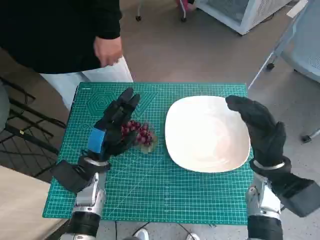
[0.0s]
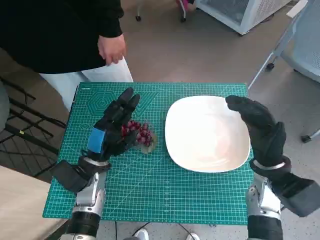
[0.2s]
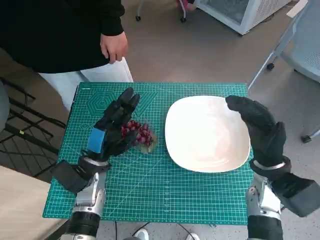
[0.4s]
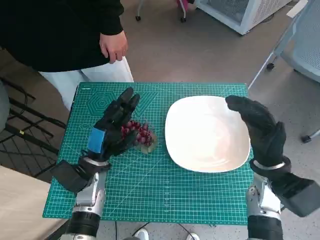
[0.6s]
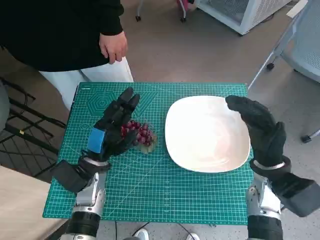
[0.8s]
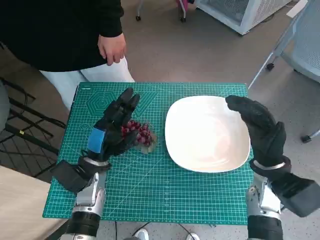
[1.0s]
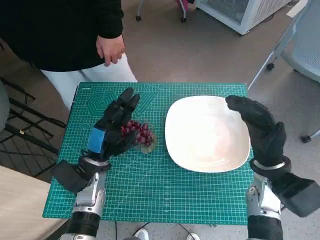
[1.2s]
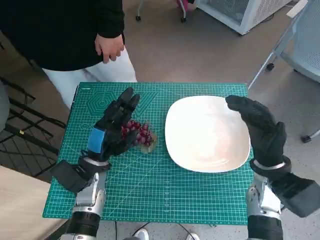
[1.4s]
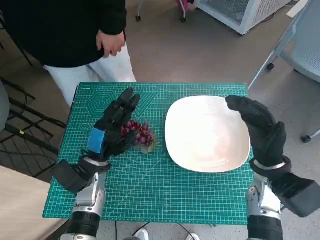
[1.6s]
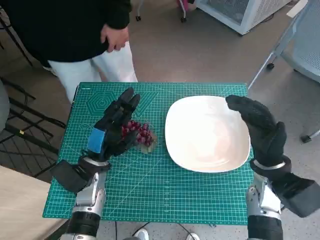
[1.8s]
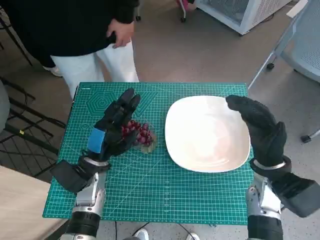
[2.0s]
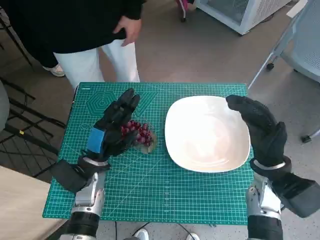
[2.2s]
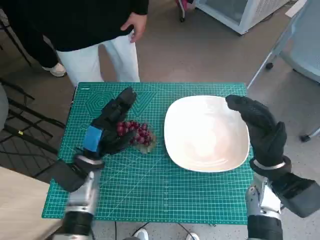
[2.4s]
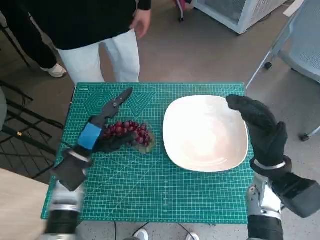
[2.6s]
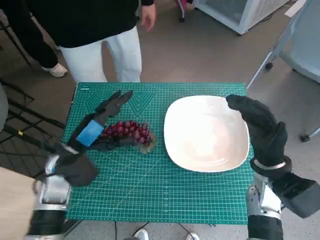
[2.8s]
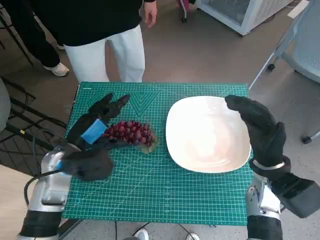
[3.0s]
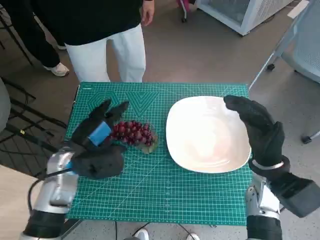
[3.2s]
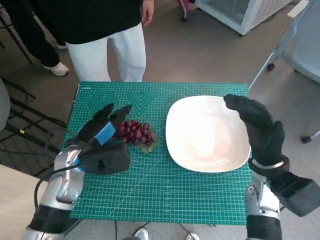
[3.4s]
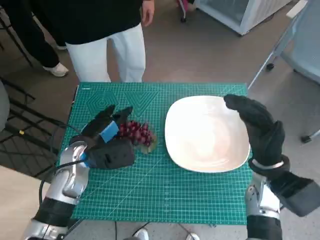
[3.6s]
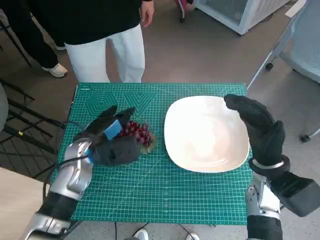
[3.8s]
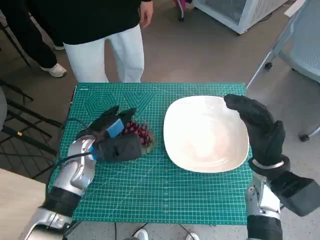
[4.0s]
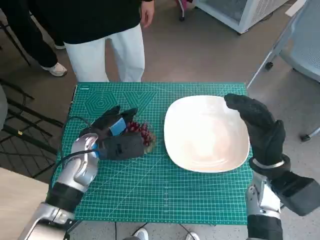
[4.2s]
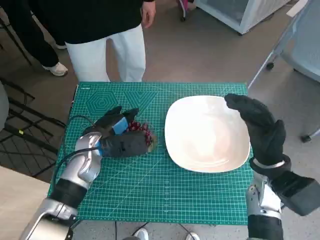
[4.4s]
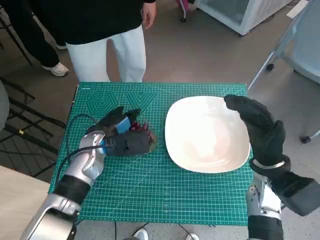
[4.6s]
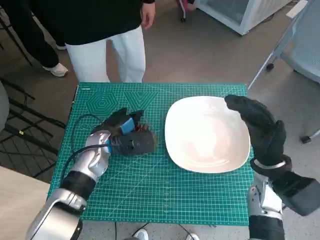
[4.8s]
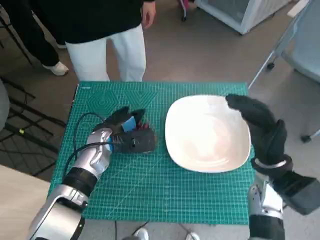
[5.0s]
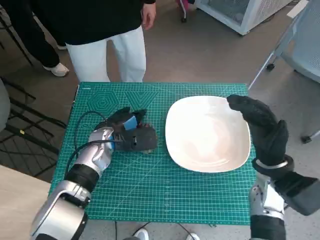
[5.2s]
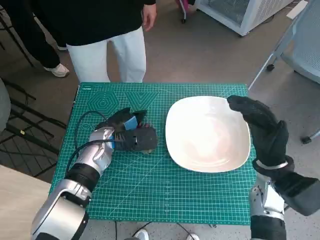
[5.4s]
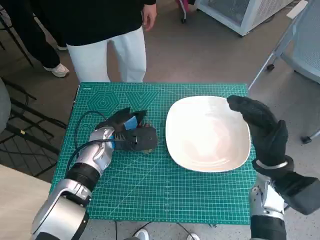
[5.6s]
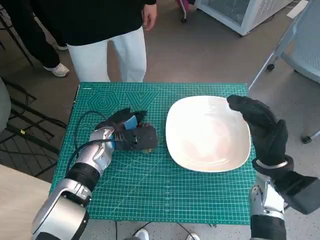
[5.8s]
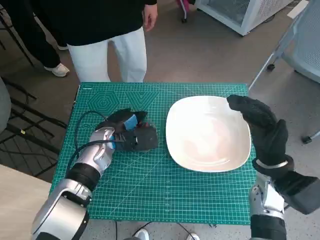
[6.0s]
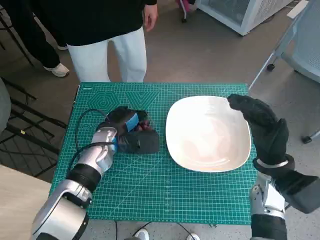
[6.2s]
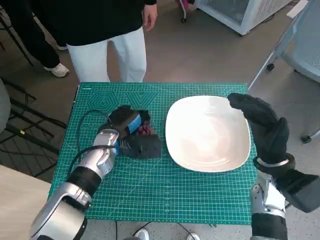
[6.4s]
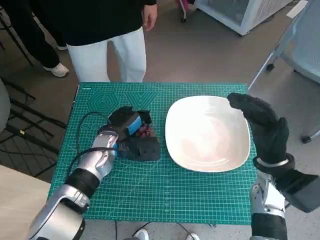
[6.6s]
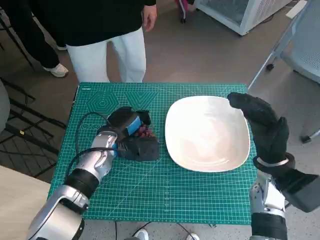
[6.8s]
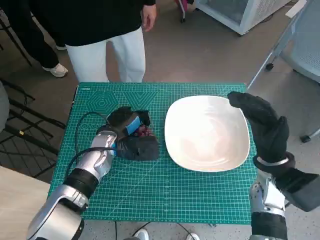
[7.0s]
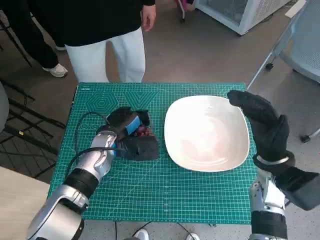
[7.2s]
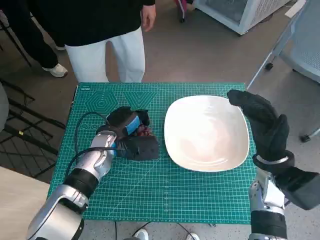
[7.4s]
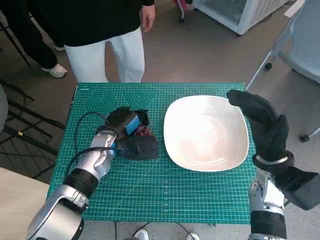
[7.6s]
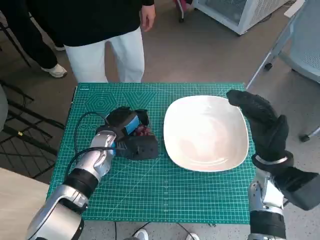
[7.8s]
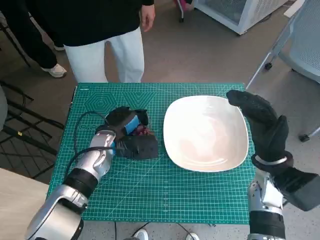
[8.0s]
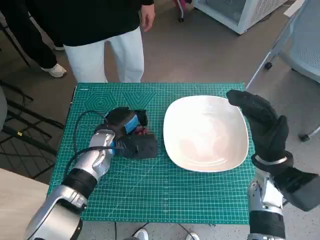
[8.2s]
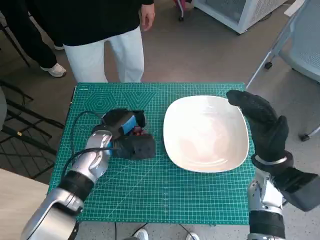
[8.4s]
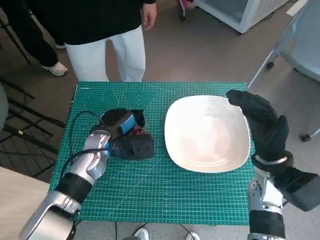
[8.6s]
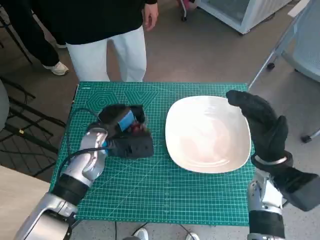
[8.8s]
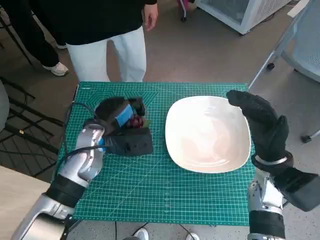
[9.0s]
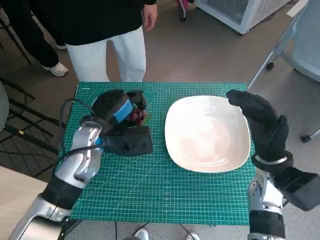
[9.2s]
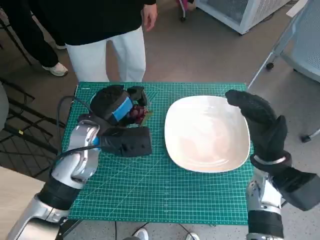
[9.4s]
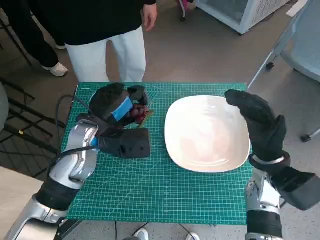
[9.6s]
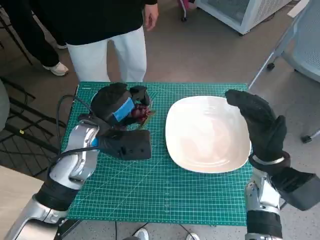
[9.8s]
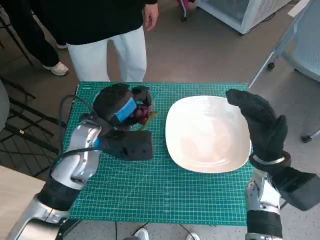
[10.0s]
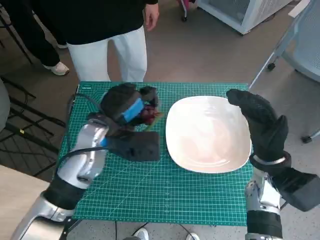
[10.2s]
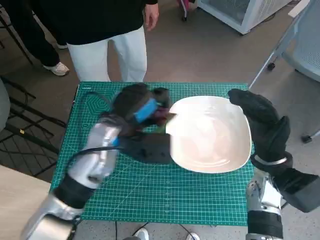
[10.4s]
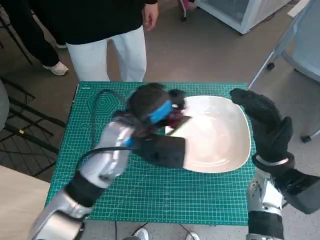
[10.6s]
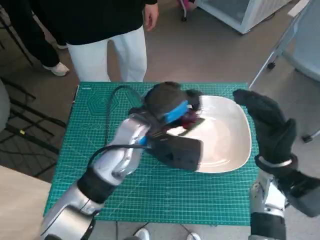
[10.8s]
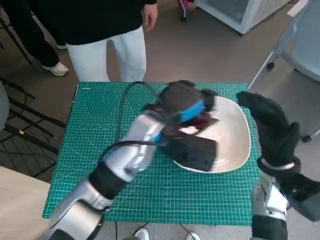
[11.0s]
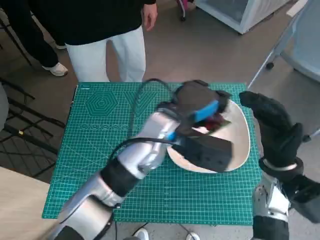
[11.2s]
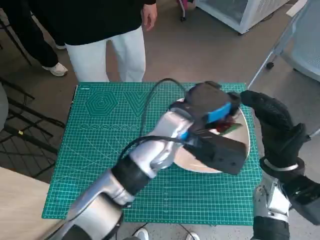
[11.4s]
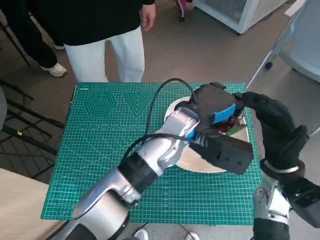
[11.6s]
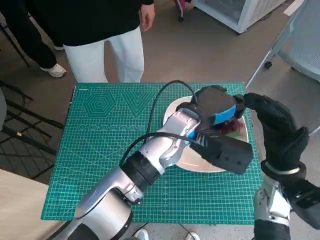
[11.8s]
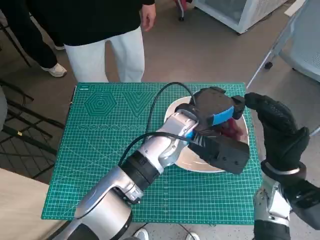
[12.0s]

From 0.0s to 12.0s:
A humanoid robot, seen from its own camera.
Task of the whole recording: Pick up the grapes and put them on the plate.
Step, from 0.0s to 6.8s: Grasp the grapes with left hand.
From 1.6s to 3.0s: The left hand moves upward, roughly 5 cm.
From 3.0s to 4.4s: The left hand travels forward by approximately 5 cm.
From 4.4s to 9.0s: The hands stay close to where they were, moving slightly.
From 9.0s to 10.4s: The left hand shifts by roughly 5 cm.
From 10.4s to 12.0s: The left hand travels to the right by some 15 cm.

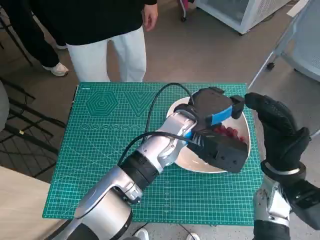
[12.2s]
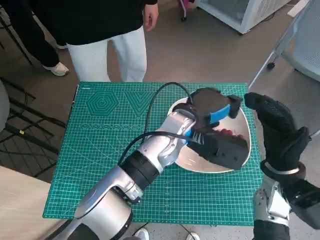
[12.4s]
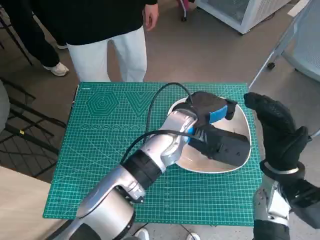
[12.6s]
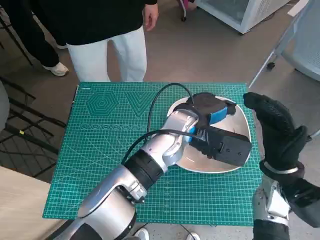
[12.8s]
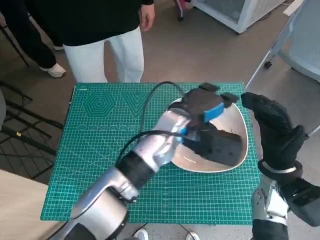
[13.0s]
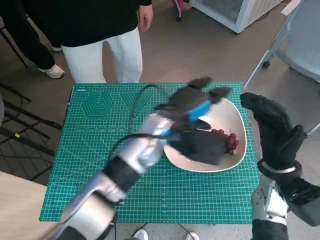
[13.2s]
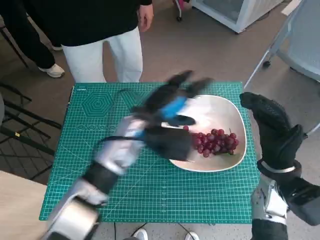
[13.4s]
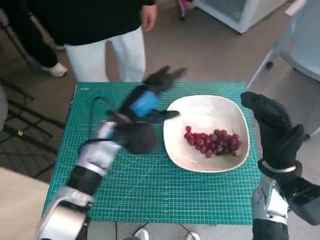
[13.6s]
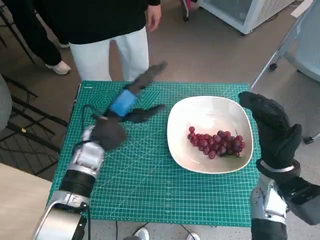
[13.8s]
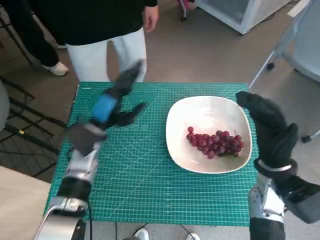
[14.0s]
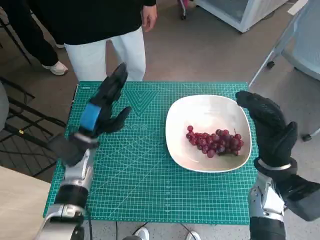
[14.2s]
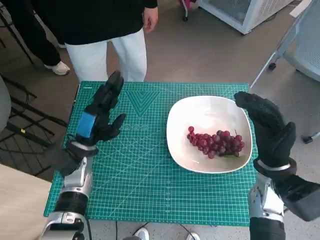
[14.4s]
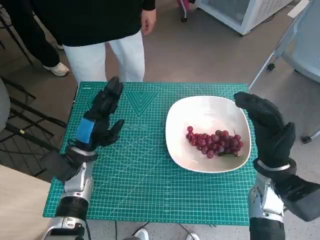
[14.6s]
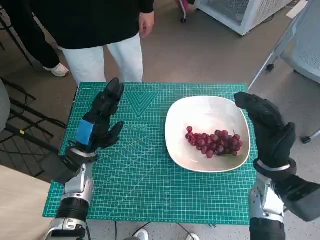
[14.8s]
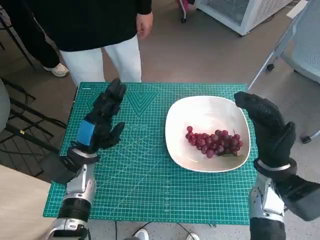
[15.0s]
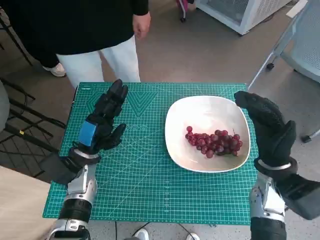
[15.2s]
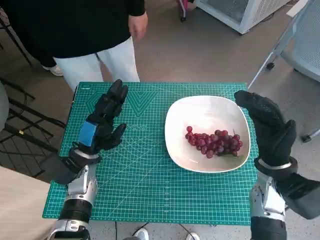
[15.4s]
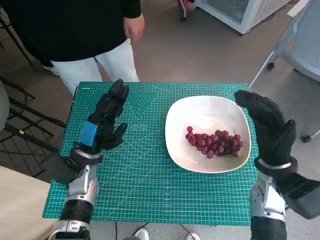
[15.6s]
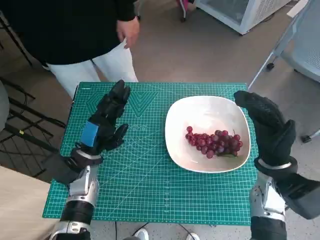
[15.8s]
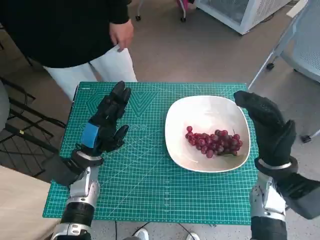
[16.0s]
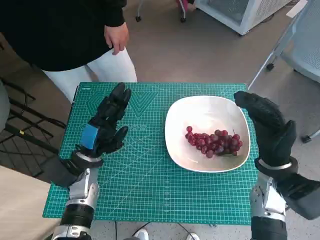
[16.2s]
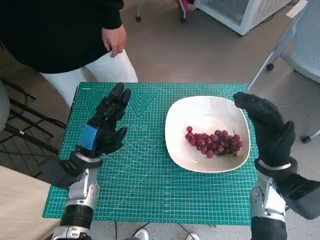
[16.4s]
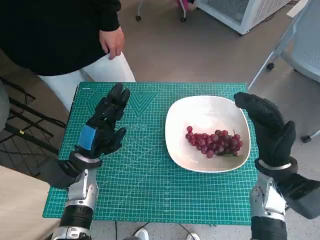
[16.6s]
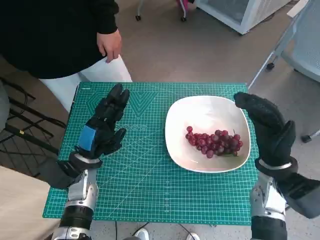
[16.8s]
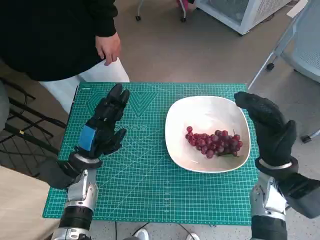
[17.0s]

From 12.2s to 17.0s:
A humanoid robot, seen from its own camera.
Task of the whole recording: Pick up the grapes and put them on the plate.
From 12.2s to 13.8s: The left hand travels to the left by roughly 15 cm.
From 13.8s to 15.4s: The left hand heads downward and to the left, covering some 10 cm.
From 15.4s to 17.0s: Both hands stay put.

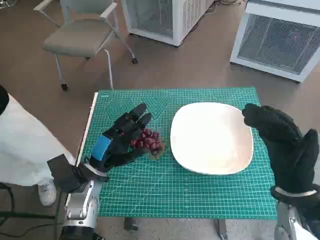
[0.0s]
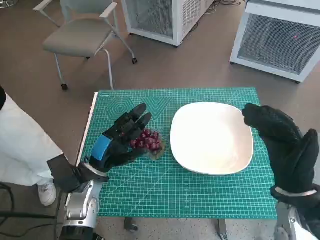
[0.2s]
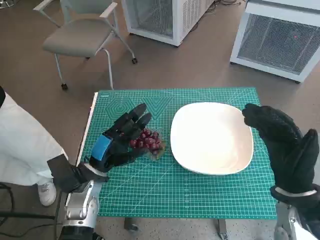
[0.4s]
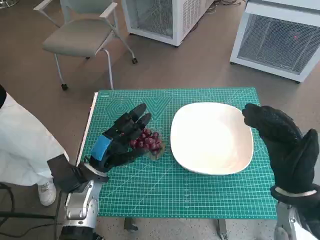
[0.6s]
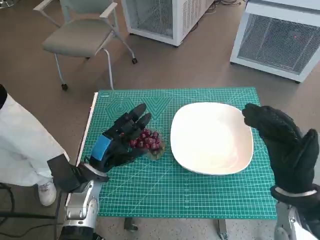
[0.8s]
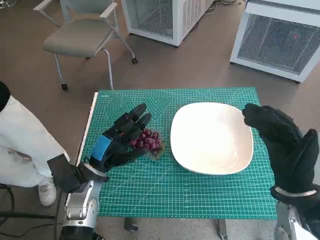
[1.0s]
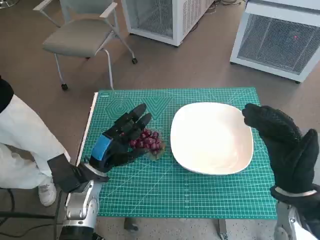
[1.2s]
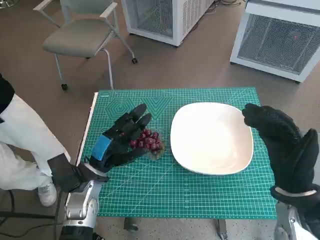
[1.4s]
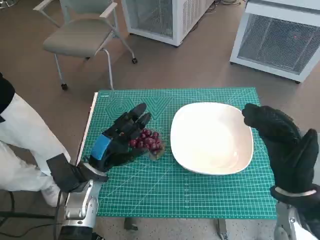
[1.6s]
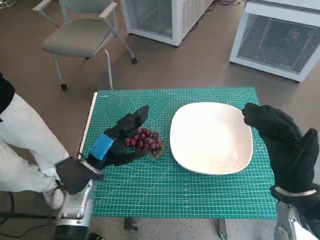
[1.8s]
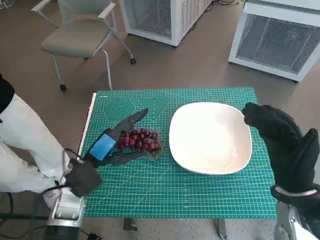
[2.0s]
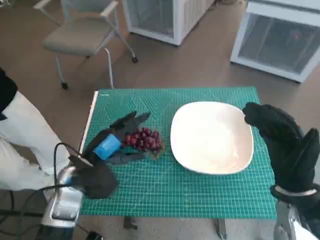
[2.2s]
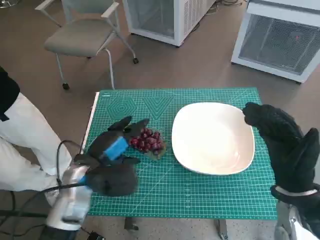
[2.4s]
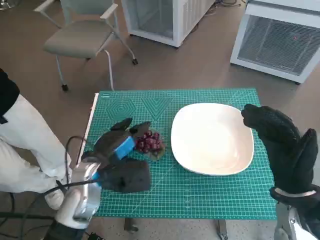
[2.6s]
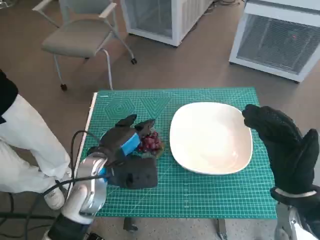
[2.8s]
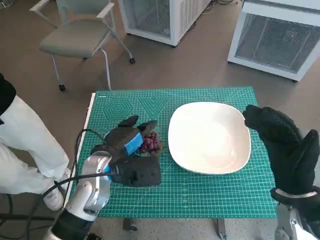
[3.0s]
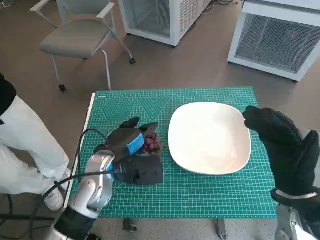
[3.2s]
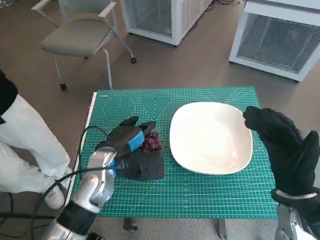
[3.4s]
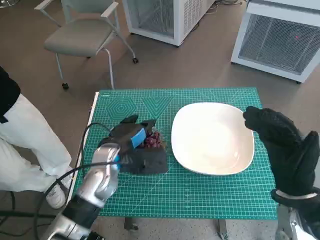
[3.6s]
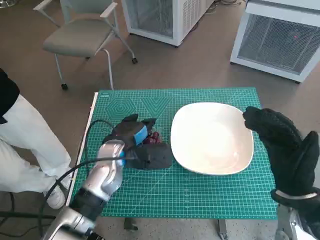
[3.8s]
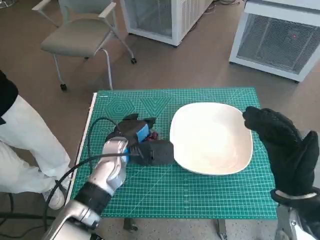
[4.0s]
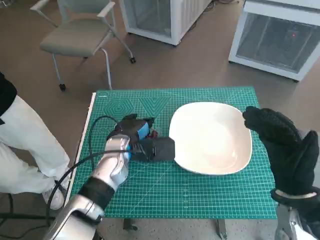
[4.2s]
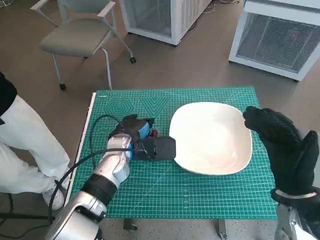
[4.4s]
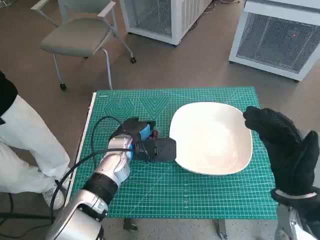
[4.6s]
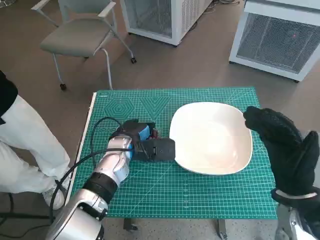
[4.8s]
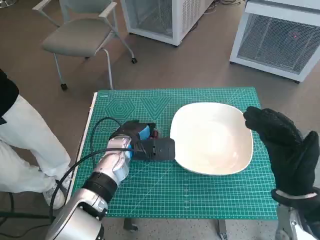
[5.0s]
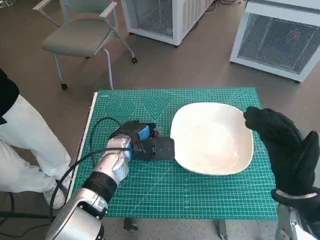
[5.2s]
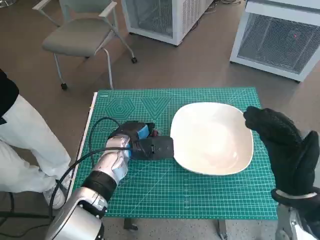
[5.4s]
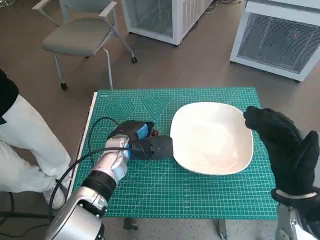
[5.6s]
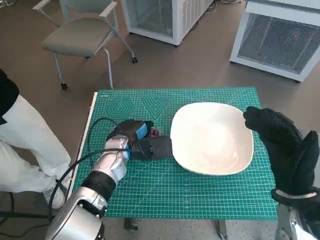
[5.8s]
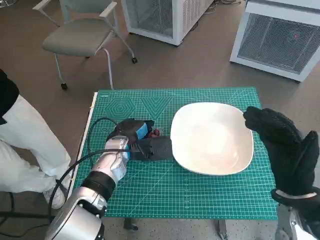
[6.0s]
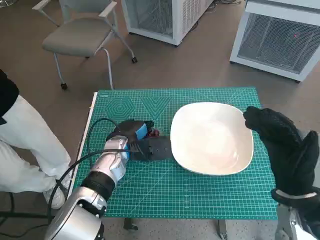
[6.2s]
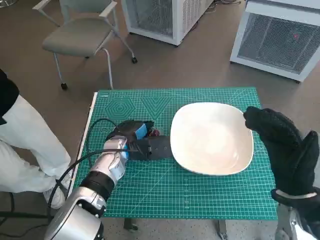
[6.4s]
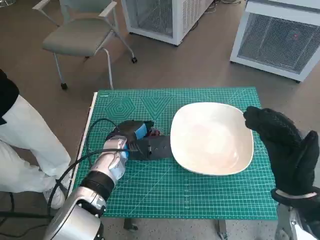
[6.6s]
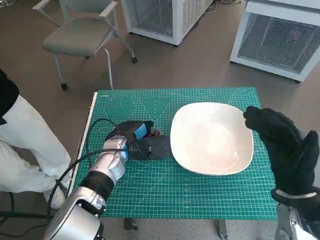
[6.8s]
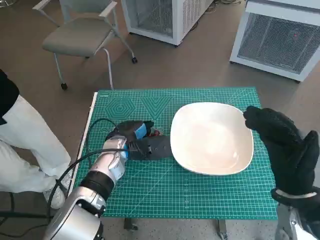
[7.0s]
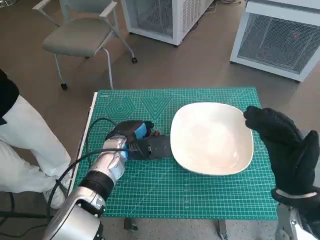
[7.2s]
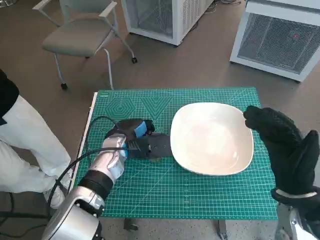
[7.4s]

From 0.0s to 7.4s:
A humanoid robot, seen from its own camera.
Task of the whole recording: Pick up the grapes and put them on the plate.
Step, from 0.0s to 7.0s: Grasp the grapes with left hand.
From 1.4s to 3.0s: The left hand shifts by about 5 cm.
From 3.0s to 4.4s: The left hand moves forward, approximately 5 cm.
From 4.4s to 6.0s: The hands move only a little.
From 6.0s to 7.4s: The two hands keep their place.
